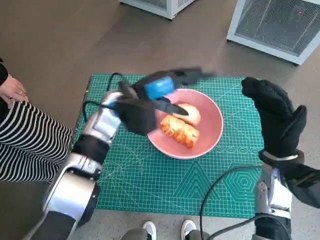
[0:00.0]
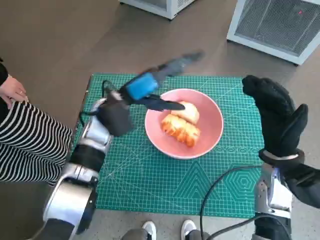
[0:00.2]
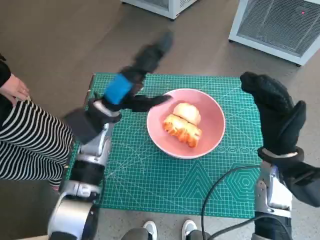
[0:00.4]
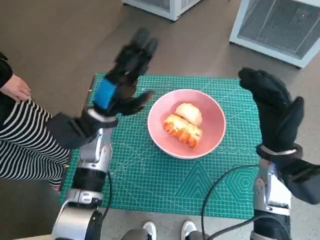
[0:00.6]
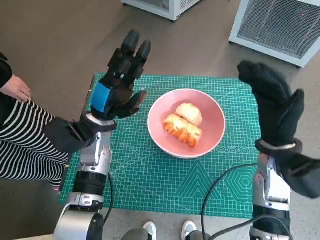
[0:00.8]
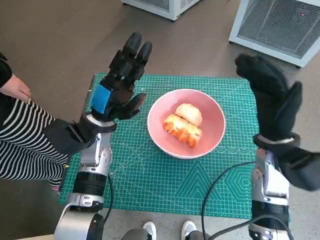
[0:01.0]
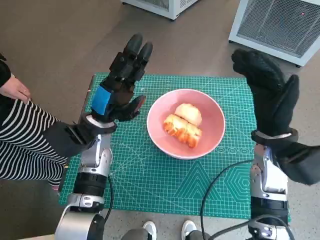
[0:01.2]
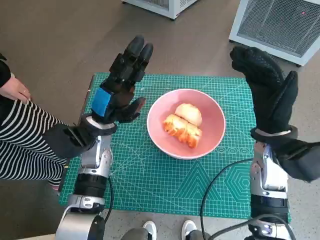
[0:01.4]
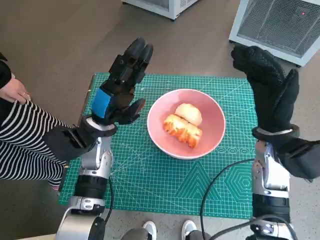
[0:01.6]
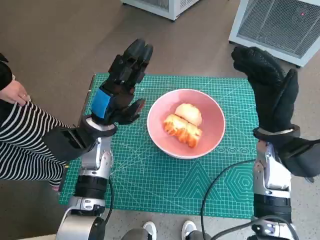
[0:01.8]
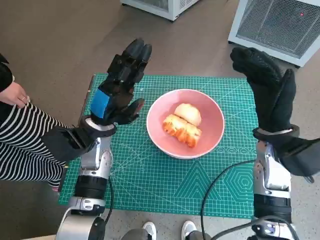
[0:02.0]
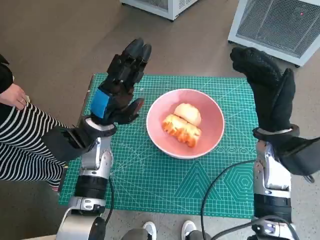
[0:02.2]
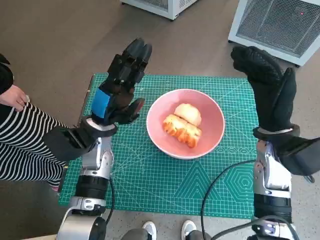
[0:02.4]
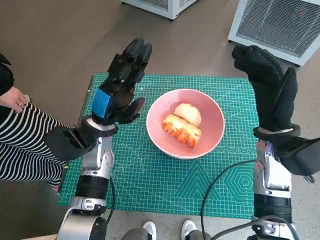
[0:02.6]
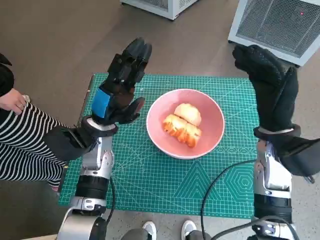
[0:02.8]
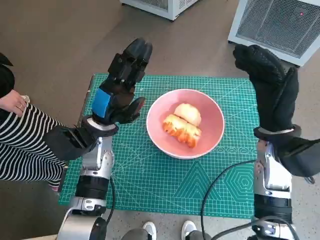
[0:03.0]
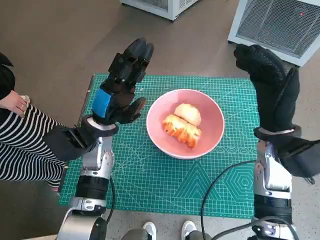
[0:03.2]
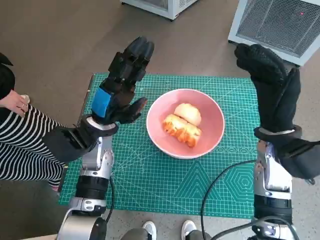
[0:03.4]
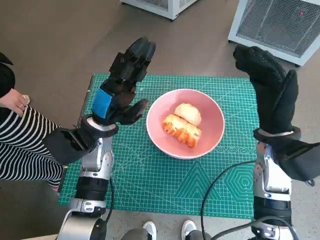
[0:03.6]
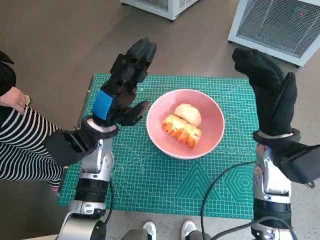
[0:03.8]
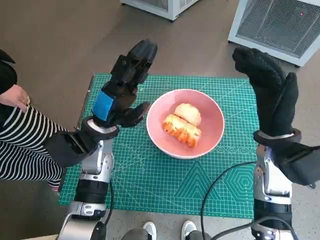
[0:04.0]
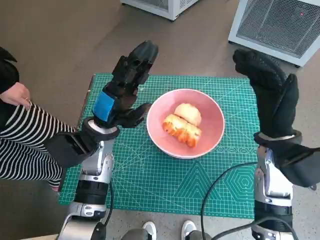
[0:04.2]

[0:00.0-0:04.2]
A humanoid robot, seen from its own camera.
Task of the whole recording: Push the bowl into the center of the table and put the bread into the bowl.
0:00.0 to 0:01.4: The left hand goes some 5 cm to the left. Meanwhile the right hand moves some 5 cm.
0:01.4 to 0:02.8: The two hands keep their place.
0:02.8 to 0:04.2: There are only small adjustments of the hands.

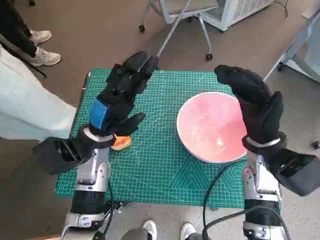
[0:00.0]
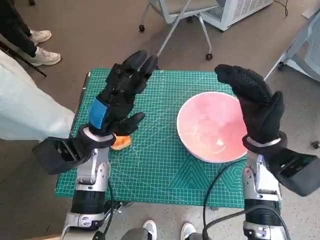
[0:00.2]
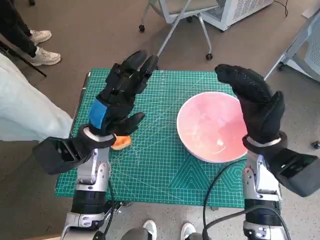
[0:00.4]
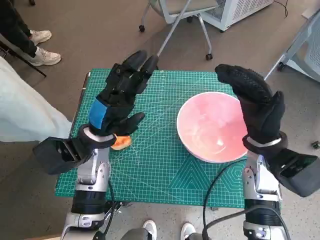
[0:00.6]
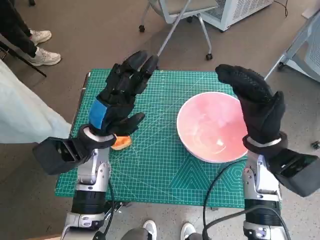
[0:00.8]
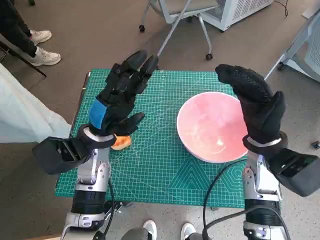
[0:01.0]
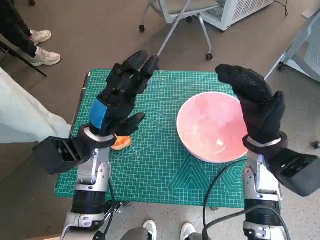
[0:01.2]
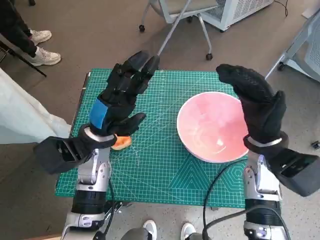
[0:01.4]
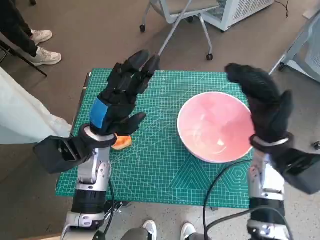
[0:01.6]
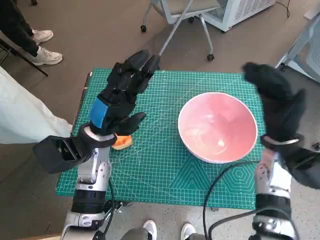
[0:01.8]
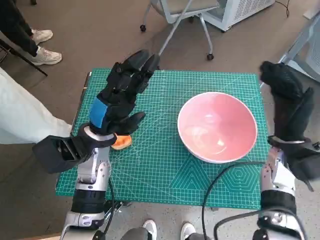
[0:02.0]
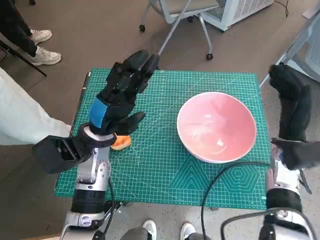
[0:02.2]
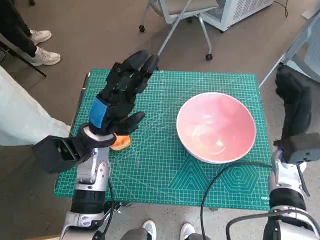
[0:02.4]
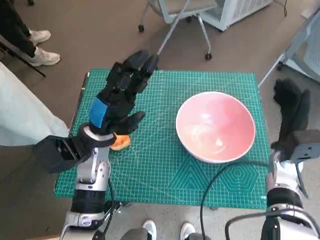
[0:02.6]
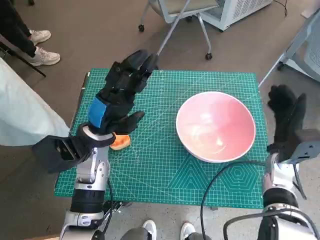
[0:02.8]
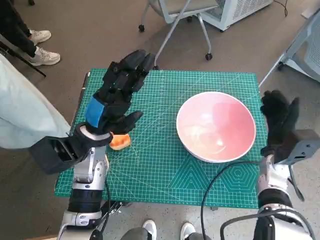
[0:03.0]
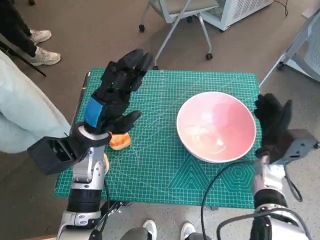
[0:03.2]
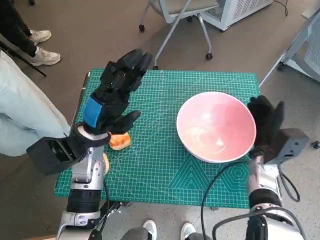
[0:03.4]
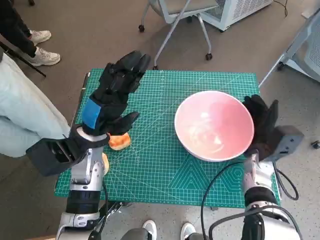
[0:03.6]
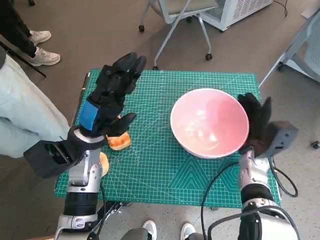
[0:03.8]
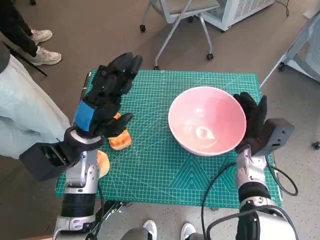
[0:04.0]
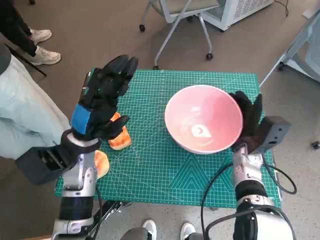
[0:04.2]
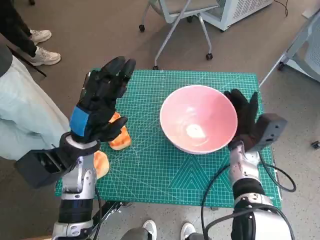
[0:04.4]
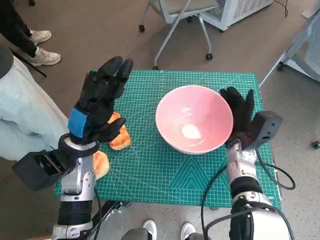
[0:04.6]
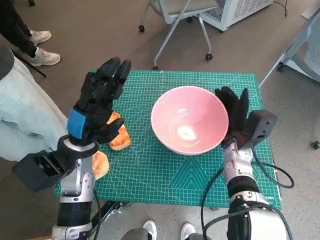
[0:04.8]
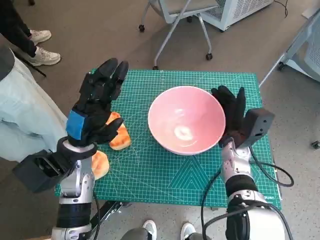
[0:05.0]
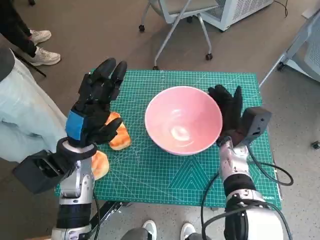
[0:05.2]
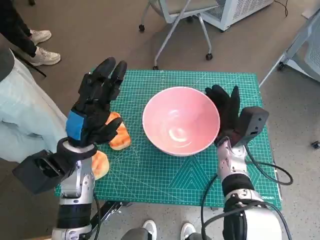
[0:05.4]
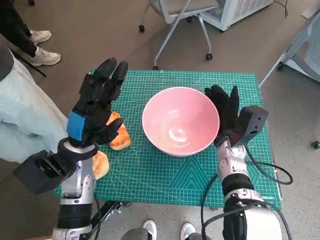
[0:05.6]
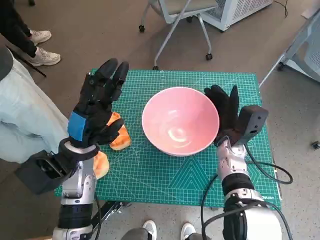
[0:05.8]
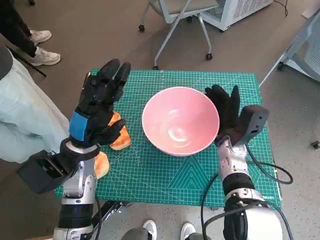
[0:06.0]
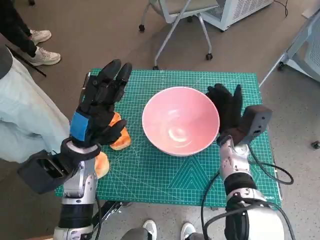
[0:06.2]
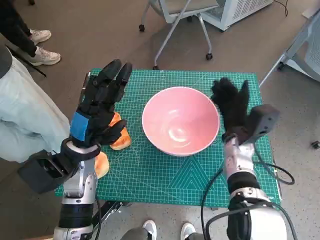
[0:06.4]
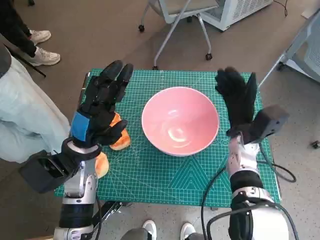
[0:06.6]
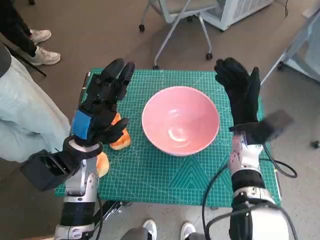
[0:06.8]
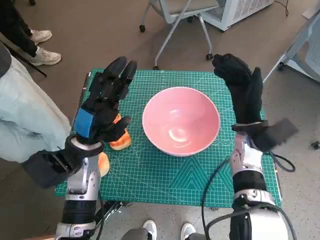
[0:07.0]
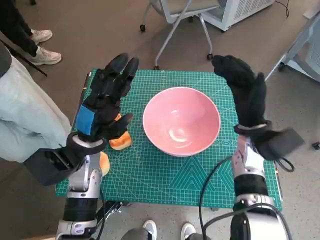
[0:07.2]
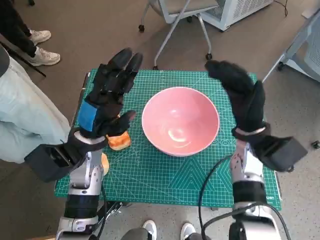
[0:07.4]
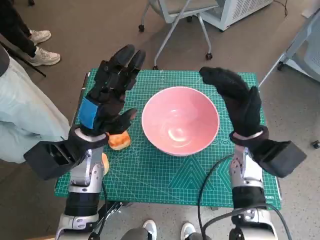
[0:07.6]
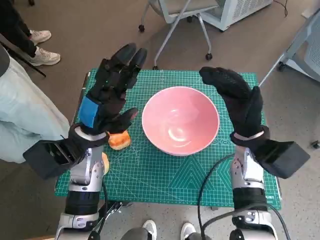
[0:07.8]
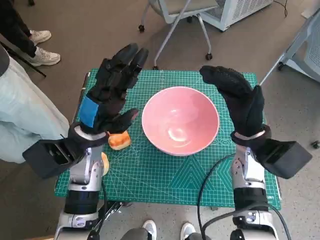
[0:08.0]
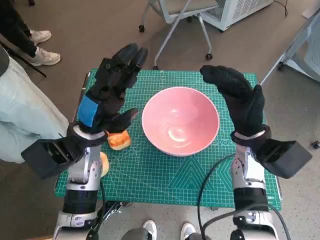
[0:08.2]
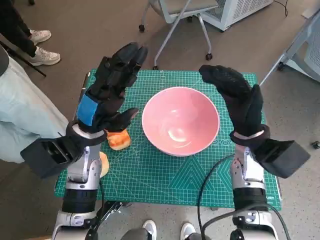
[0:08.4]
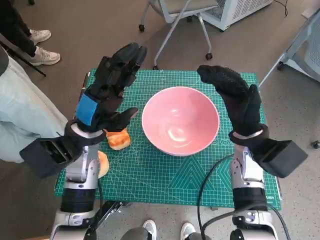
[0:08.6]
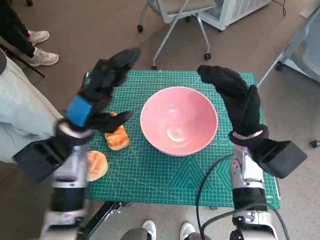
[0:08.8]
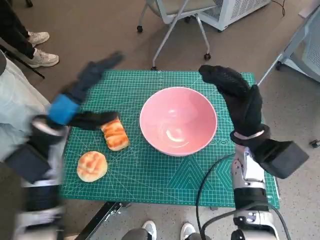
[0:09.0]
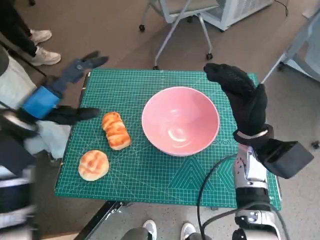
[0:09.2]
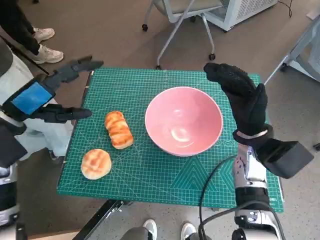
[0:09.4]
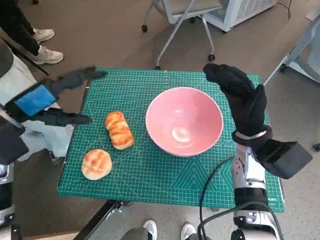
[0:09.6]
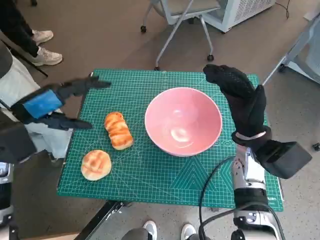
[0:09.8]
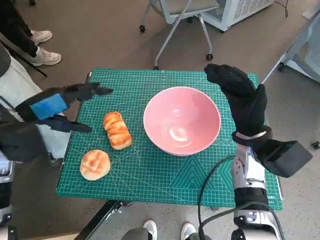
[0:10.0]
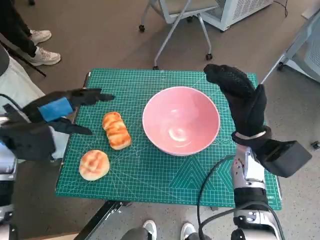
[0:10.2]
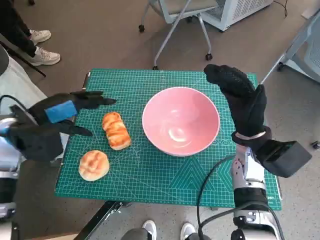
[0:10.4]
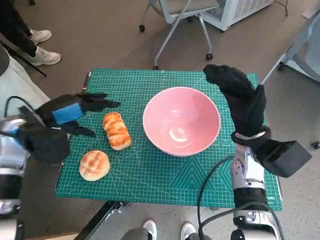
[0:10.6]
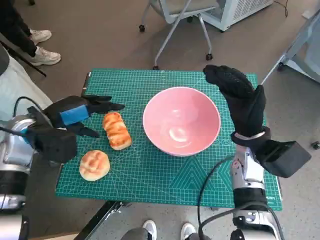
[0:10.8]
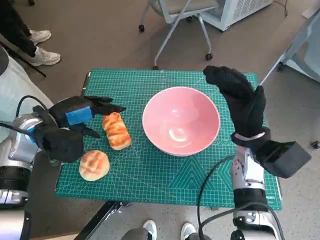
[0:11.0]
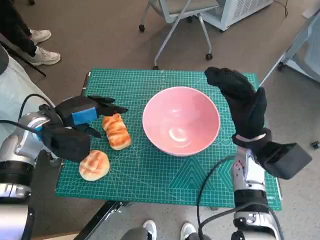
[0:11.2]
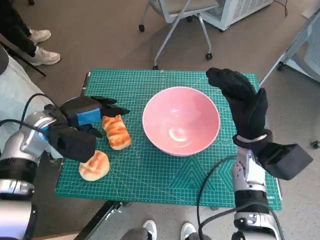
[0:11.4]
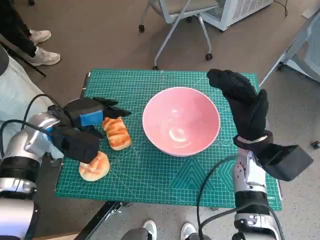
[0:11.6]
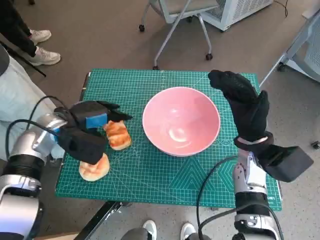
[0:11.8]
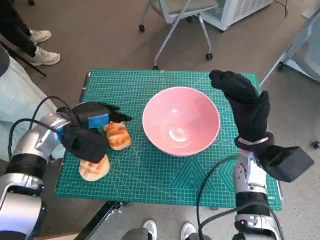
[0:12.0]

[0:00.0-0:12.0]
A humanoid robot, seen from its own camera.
Task of the whole recording: Push the bowl into the center of the table and put the bread into the bowl.
Step, 0:00.0 to 0:06.6: Move the pink bowl to the center of table with right hand.
0:01.6 to 0:03.0: The right hand moves downward and to the right, some 10 cm.
0:03.0 to 0:04.4: The right hand is displaced to the left by about 5 cm.
0:04.4 to 0:06.0: The hands stay close to where they were, moving slightly.
0:06.0 to 0:07.6: The right hand heads upward, covering approximately 5 cm.
0:07.6 to 0:09.0: The left hand shifts some 5 cm to the left.
0:09.0 to 0:10.4: The left hand heads to the left, covering some 5 cm.
0:10.4 to 0:12.0: The left hand heads downward, covering some 5 cm.

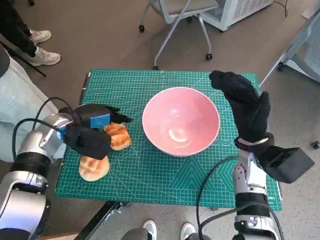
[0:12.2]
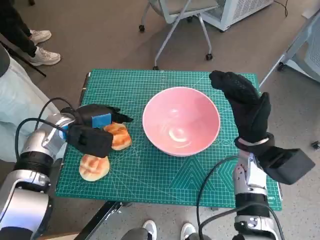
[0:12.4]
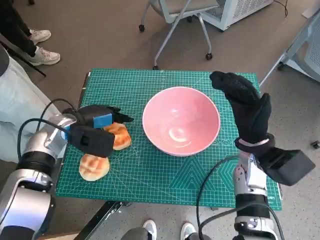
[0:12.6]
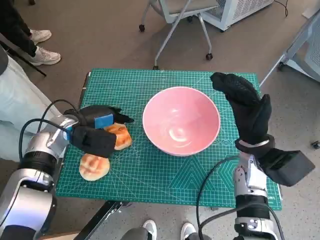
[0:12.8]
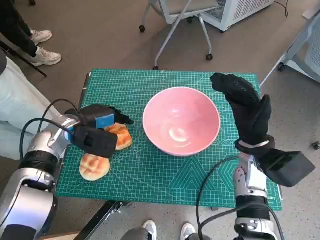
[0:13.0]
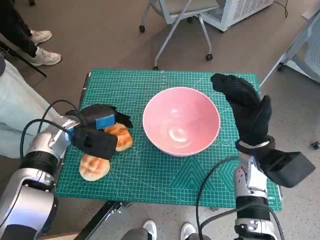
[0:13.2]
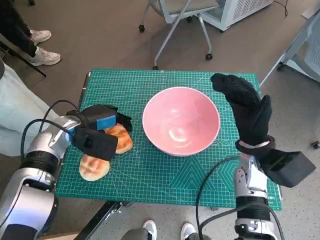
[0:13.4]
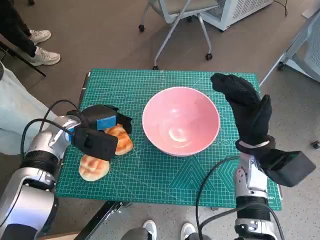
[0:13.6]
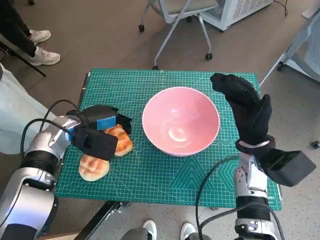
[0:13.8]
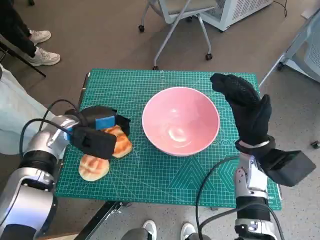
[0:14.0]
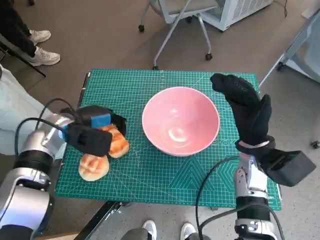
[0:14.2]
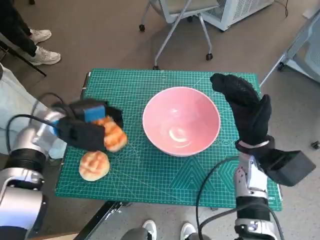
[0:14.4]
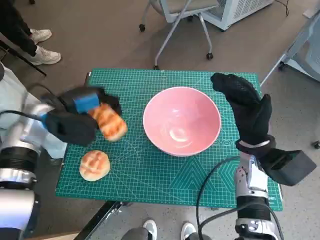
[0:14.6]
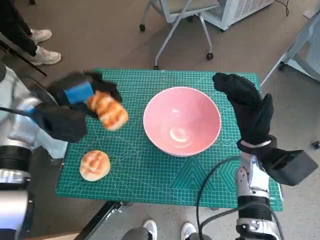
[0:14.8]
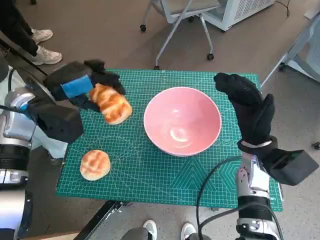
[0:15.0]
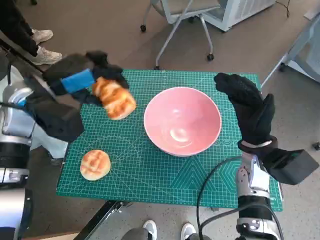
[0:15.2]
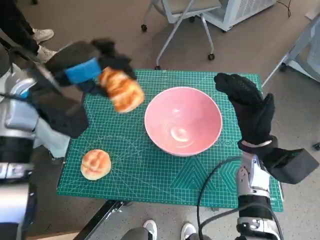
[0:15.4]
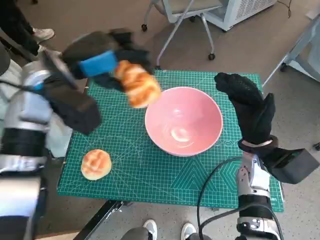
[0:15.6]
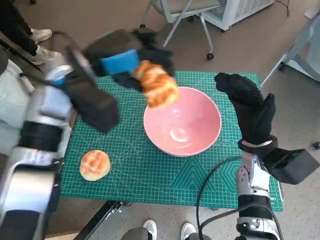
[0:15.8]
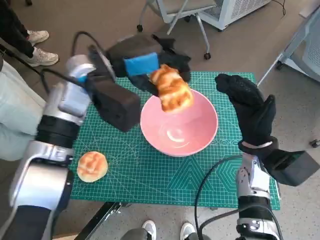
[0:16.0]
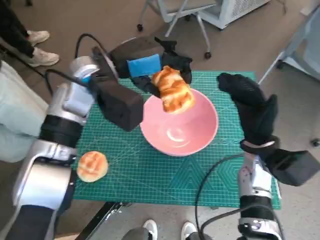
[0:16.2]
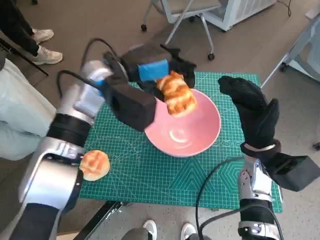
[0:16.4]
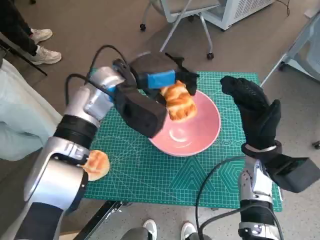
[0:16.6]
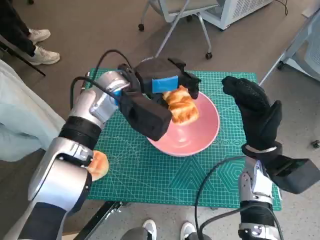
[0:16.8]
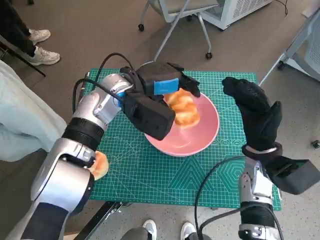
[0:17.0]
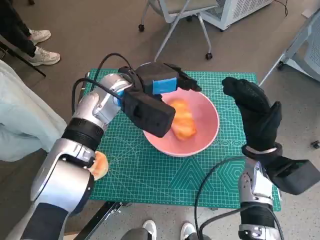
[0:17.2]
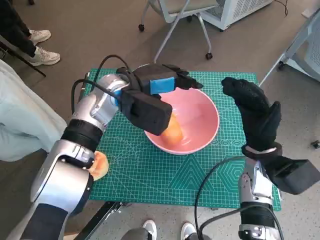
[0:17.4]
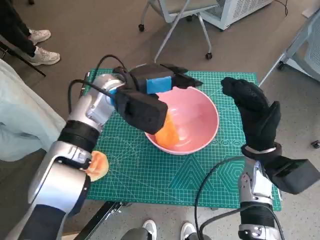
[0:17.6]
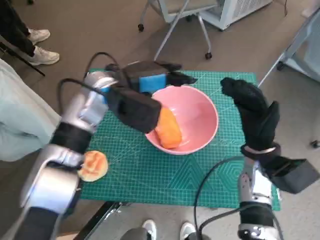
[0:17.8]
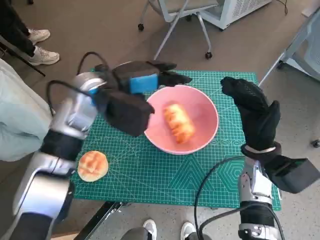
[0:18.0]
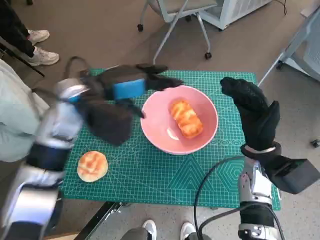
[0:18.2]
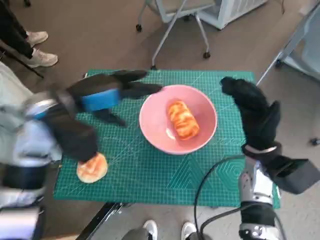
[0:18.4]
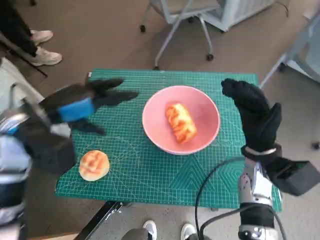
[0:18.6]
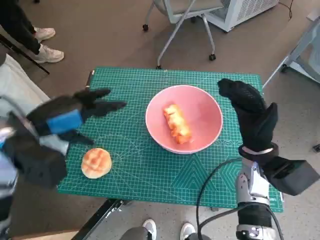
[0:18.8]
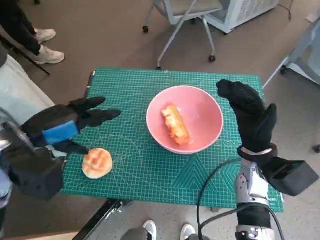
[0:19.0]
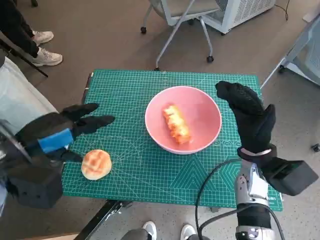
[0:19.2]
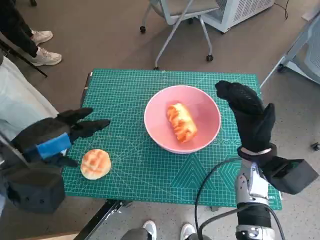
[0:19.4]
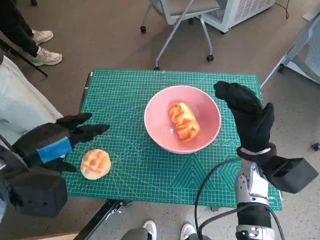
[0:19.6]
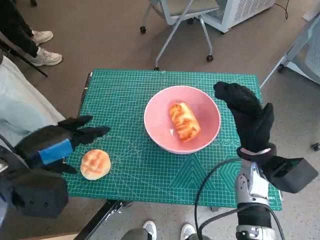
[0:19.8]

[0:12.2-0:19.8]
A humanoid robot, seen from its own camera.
Task of the whole recording: Push the bowl into the center of the table and put the bread into the bowl.
Step, 0:14.0 to 0:17.8: Place the long bread in pink bowl with left hand.
0:12.2 to 0:13.8: The hands stay close to where they were, moving slightly.
0:13.8 to 0:15.2: The left hand goes approximately 10 cm upward.
0:15.2 to 0:16.8: The left hand goes about 15 cm to the right.
0:16.8 to 0:18.2: The left hand travels to the left by about 5 cm.
0:18.2 to 0:19.8: The left hand heads backward and to the left, covering about 15 cm.
